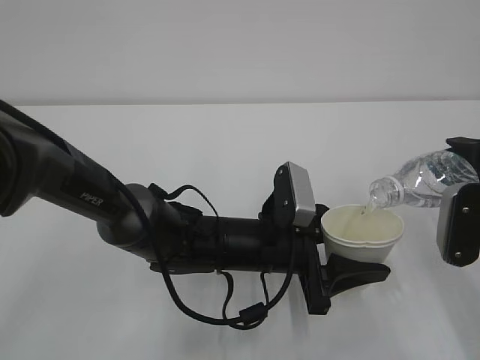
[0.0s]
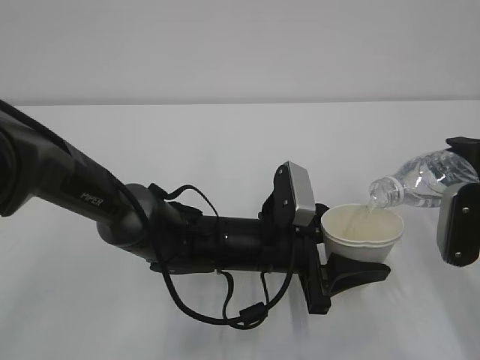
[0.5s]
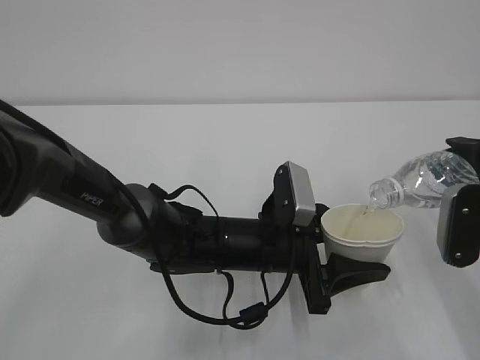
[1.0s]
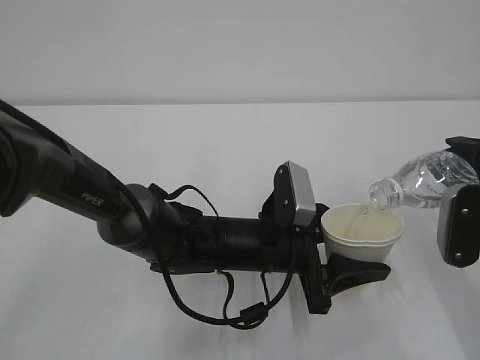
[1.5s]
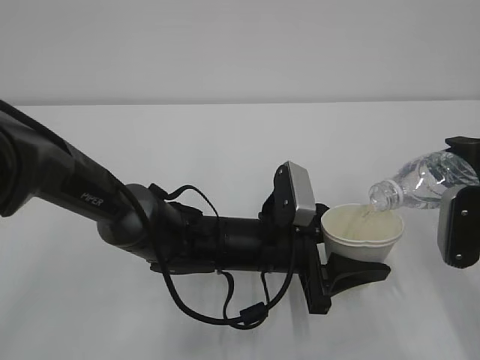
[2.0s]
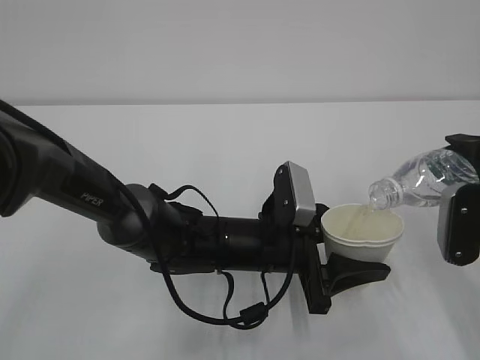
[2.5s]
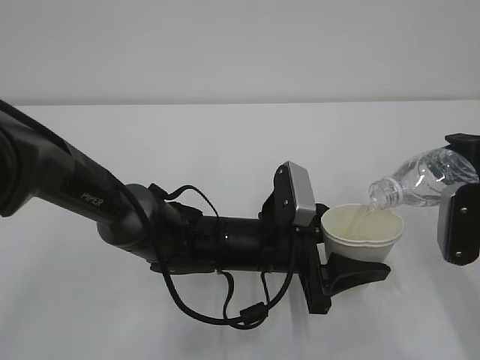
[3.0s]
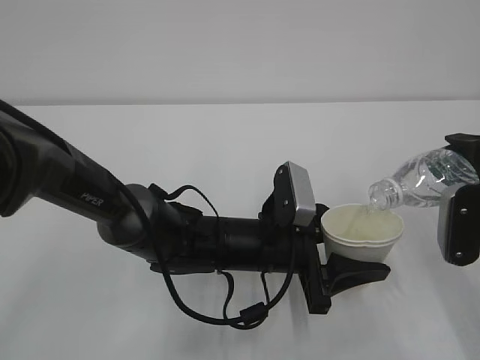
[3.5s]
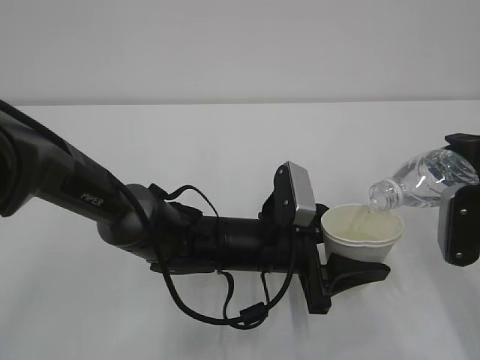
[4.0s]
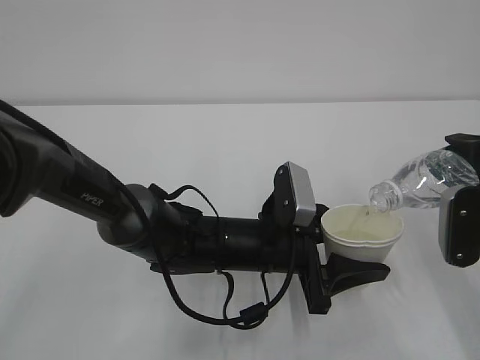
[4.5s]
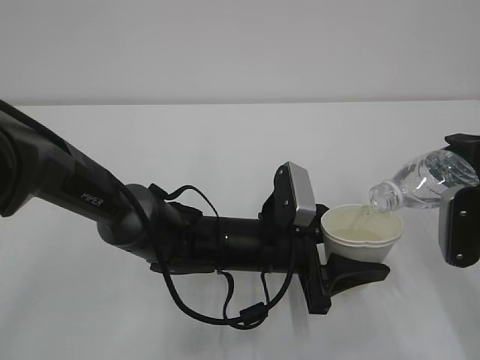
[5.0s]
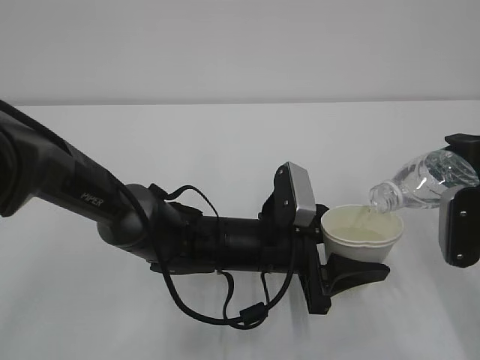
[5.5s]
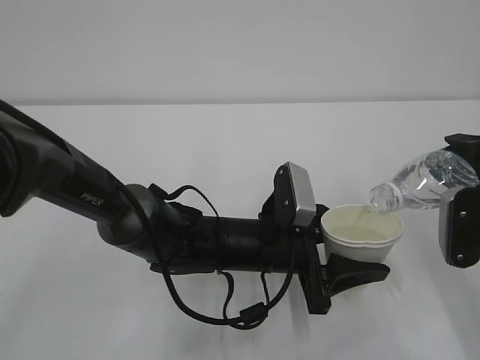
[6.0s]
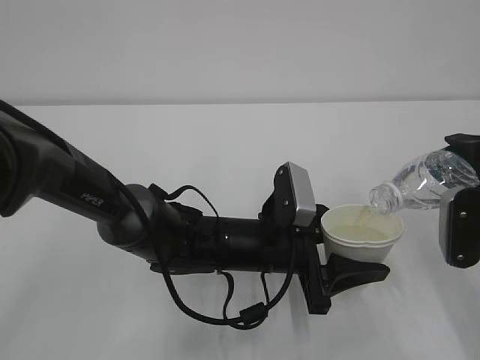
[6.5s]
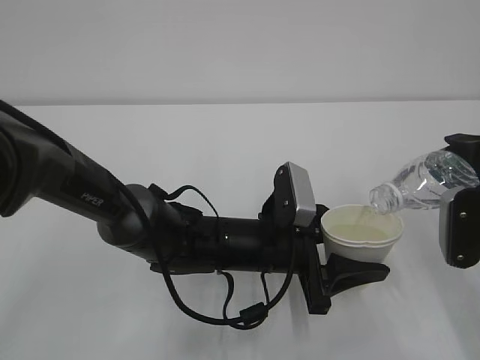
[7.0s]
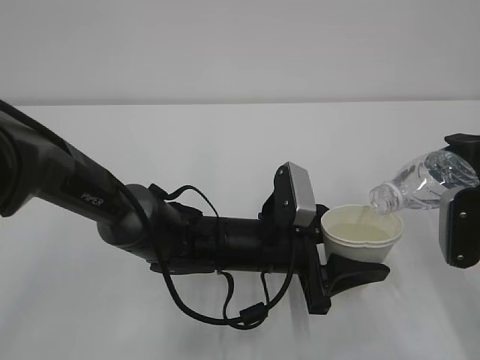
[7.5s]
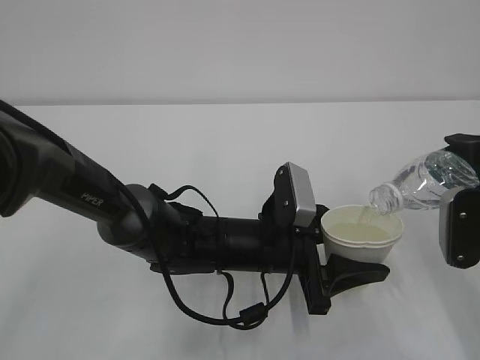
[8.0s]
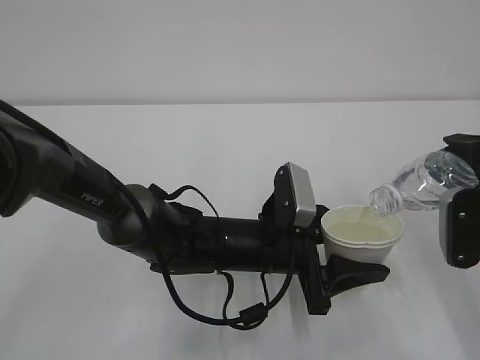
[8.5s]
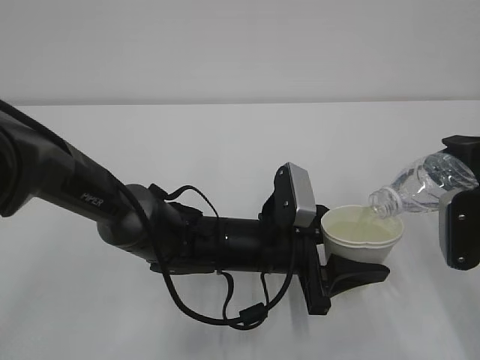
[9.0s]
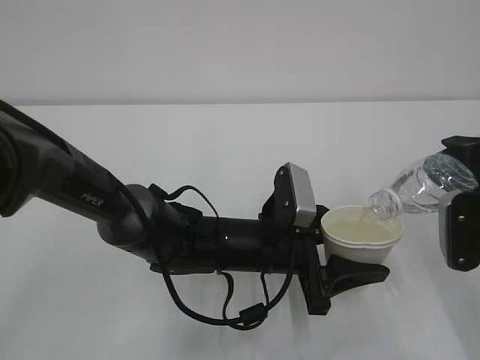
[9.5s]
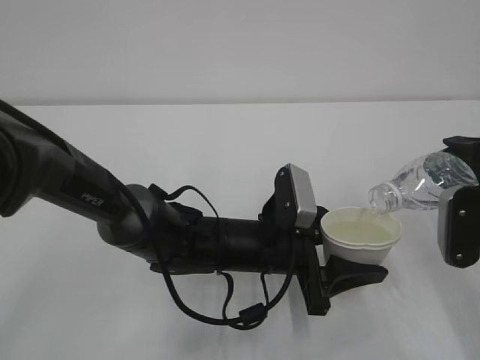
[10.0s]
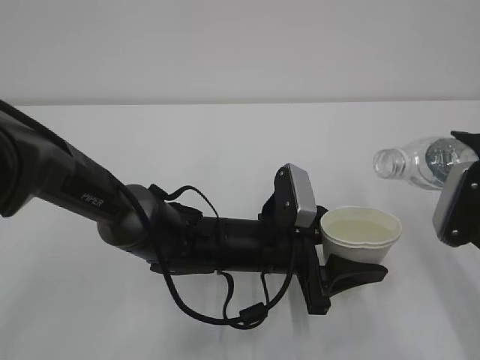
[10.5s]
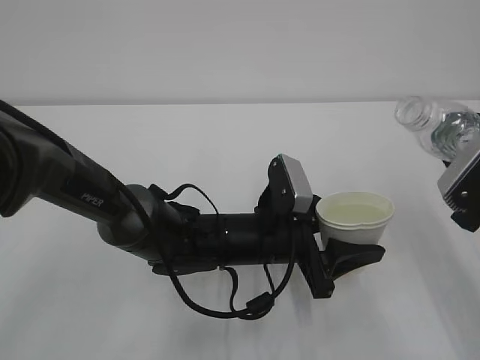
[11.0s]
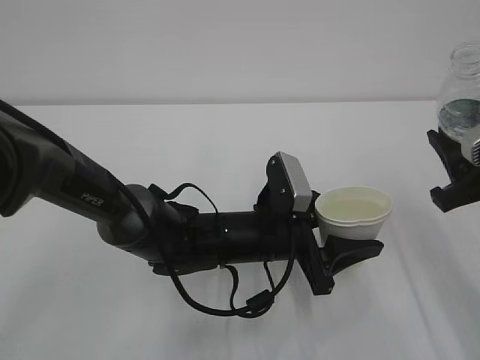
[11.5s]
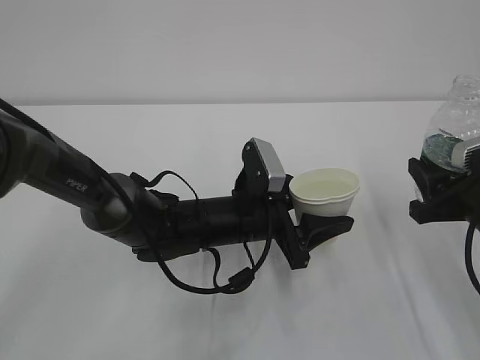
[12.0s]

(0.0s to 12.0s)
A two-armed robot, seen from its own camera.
0.0s - 4.0s: The two grippers keep their place.
4.0s - 10.0s: Both grippers stay about where they are.

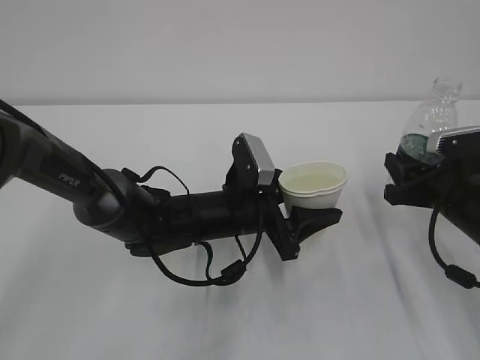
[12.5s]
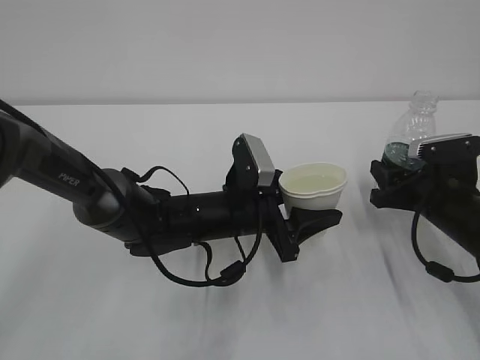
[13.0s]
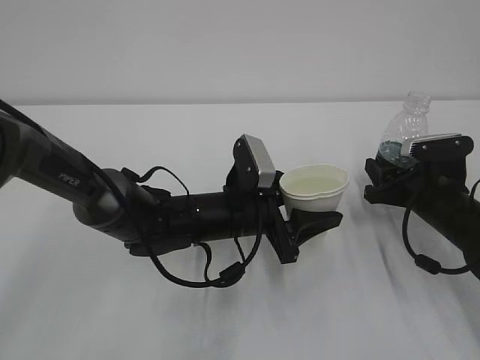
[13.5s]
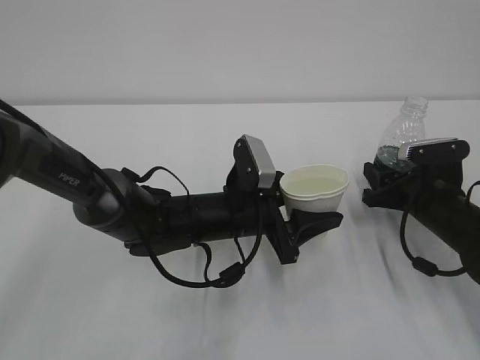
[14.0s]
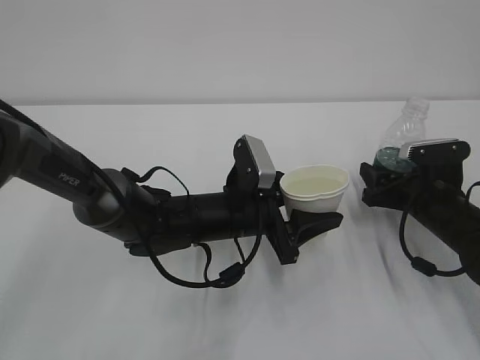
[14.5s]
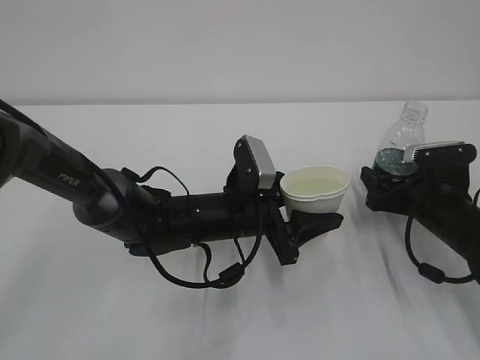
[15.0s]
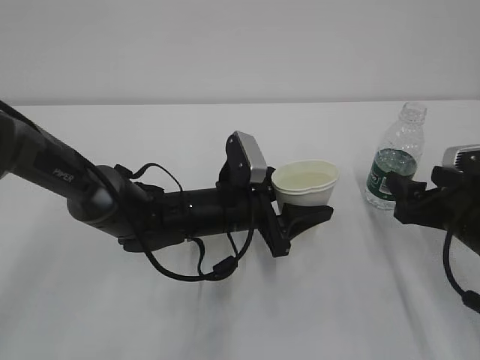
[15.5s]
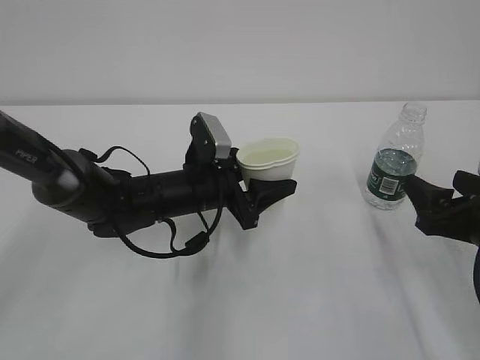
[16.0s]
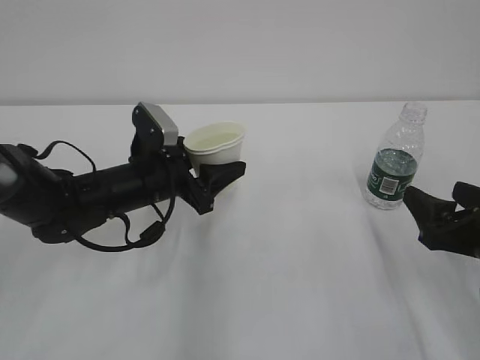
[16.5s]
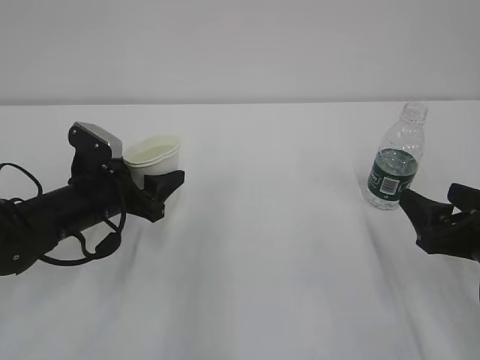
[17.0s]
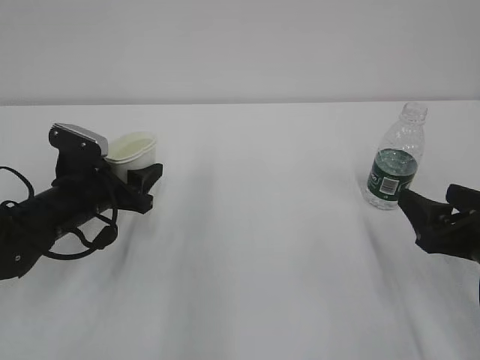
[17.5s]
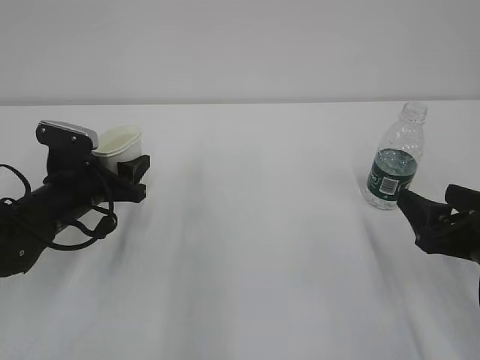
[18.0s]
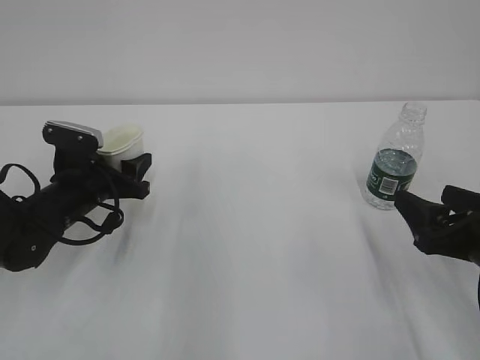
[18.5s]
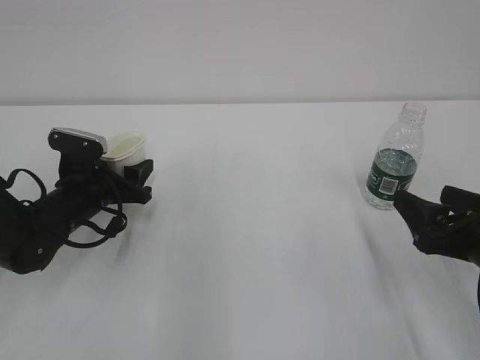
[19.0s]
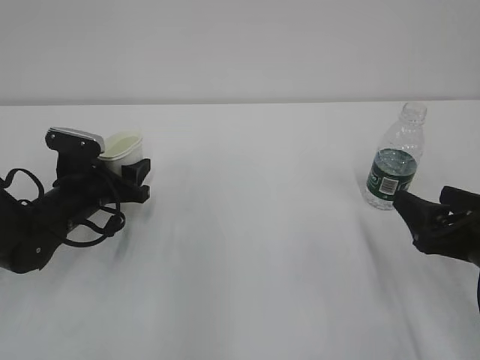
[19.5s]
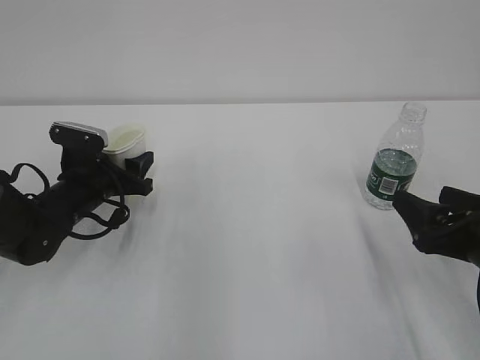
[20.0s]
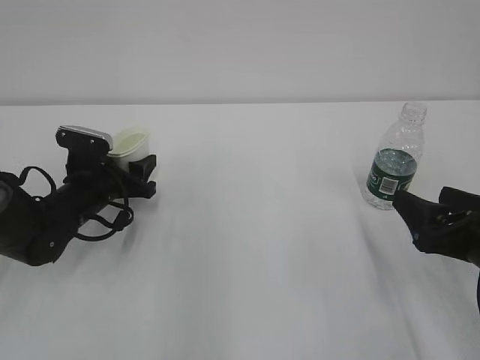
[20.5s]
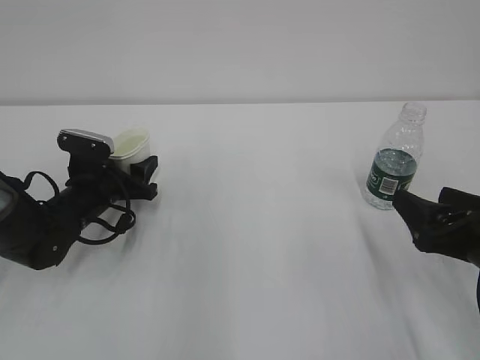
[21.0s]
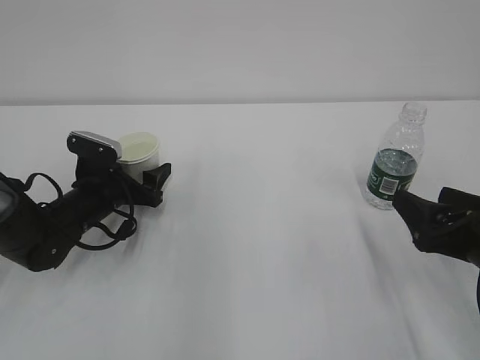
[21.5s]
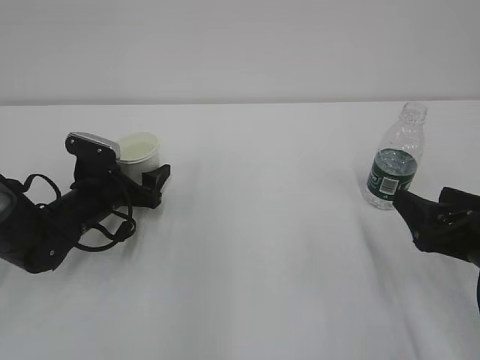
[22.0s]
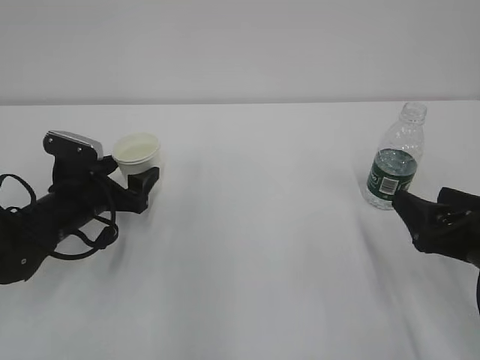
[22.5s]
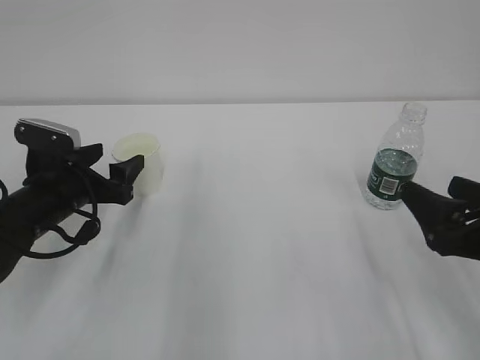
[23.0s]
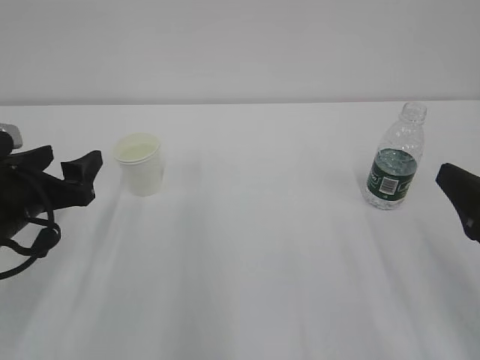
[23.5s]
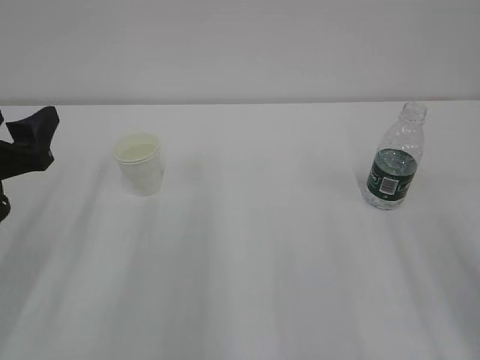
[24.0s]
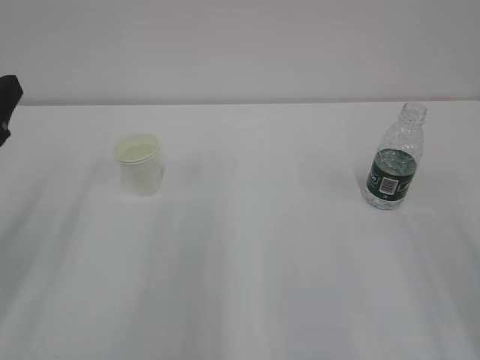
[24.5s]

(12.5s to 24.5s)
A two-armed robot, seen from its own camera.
12.5s - 14.5s: The right gripper moves approximately 5 cm, and opens.
14.5s - 16.5s: The left gripper travels to the left by roughly 10 cm; the right gripper heads backward and upward, covering some 15 cm.
16.5s - 18.5s: The left gripper moves to the left, about 10 cm.
18.5s - 20.5s: The grippers move only a little.
20.5s - 22.5s: The left gripper opens.
22.5s - 24.5s: The two grippers go approximately 20 cm upward and backward.

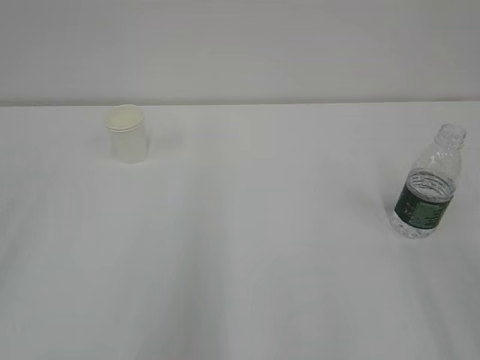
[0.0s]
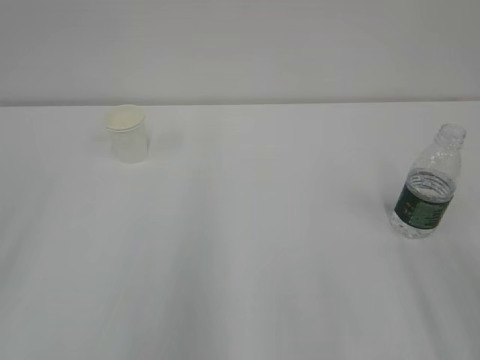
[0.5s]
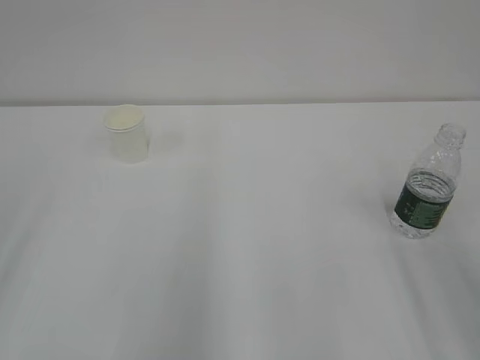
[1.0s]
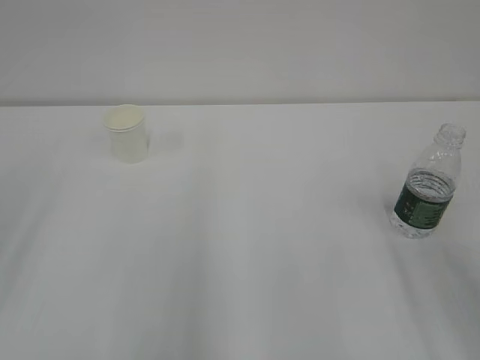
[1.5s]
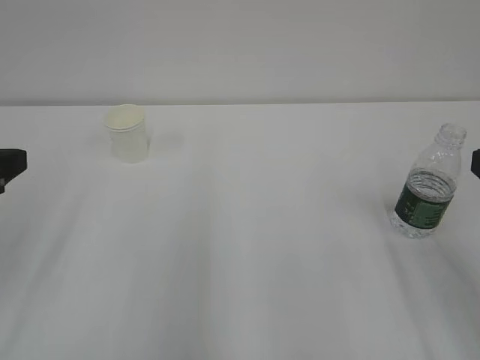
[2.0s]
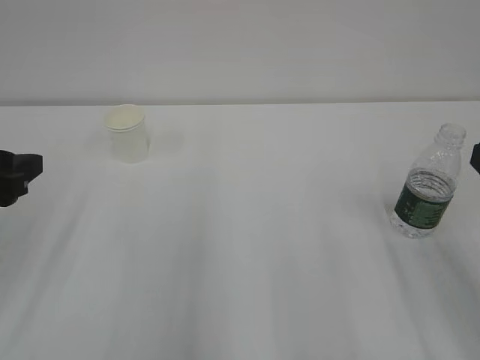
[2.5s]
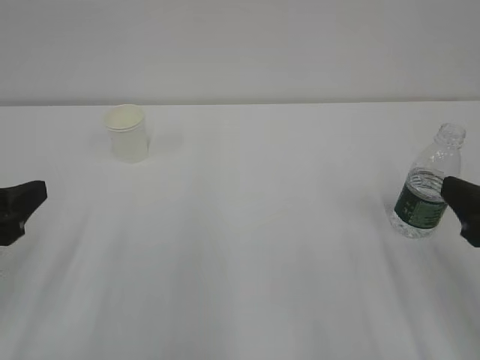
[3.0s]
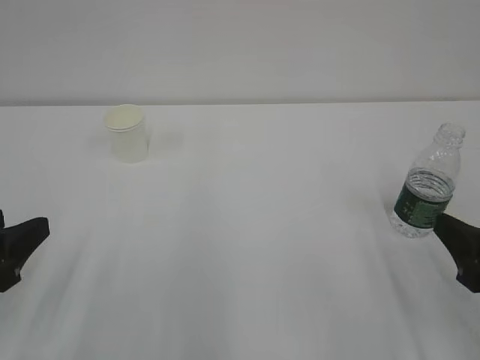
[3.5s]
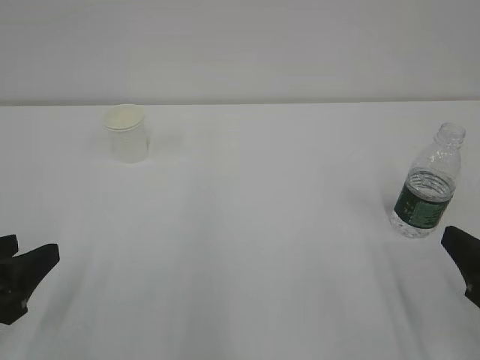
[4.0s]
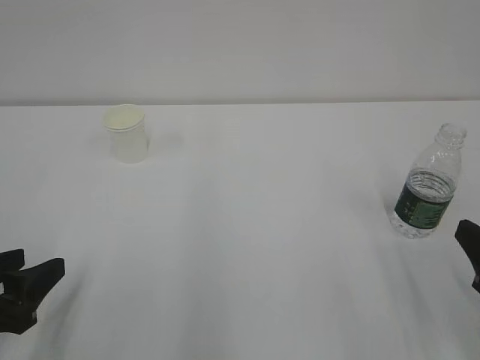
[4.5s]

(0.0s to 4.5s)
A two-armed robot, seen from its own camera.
2.0s - 4.5s: The grippers both shift downward by approximately 10 cm.
